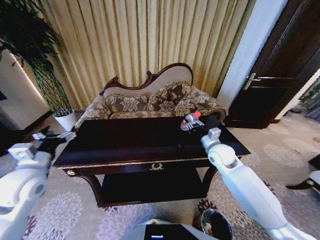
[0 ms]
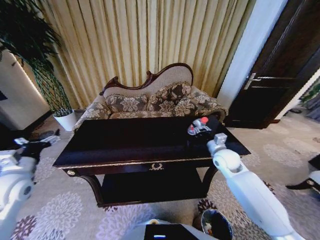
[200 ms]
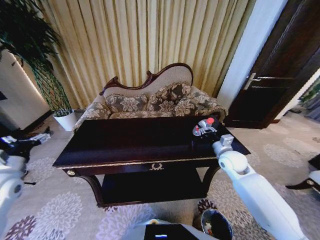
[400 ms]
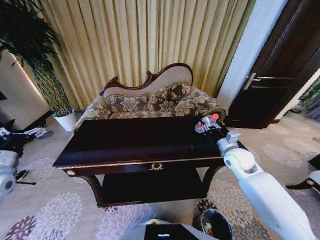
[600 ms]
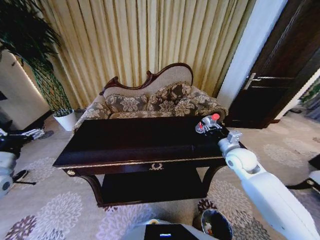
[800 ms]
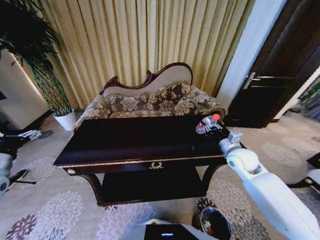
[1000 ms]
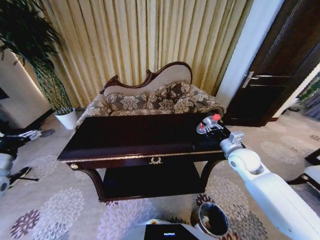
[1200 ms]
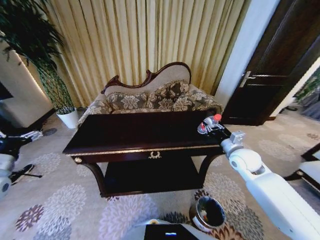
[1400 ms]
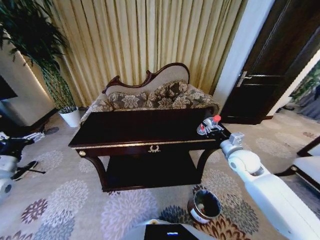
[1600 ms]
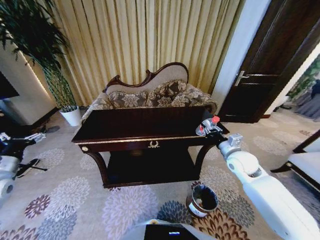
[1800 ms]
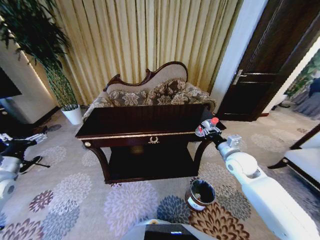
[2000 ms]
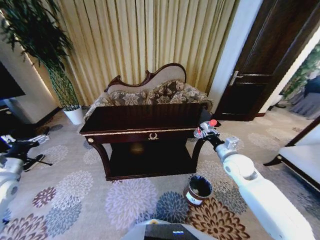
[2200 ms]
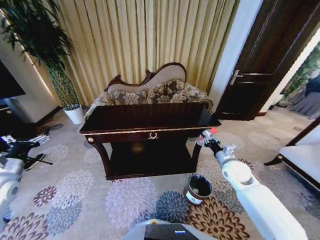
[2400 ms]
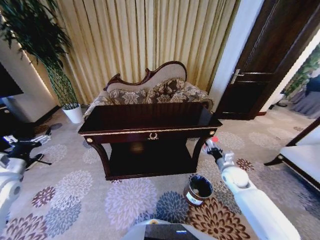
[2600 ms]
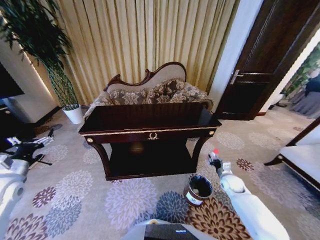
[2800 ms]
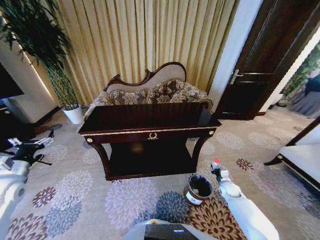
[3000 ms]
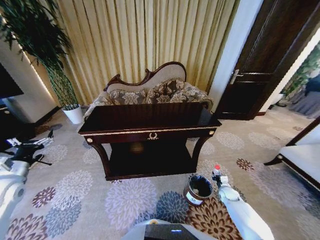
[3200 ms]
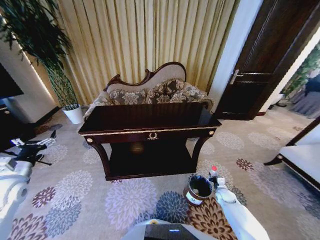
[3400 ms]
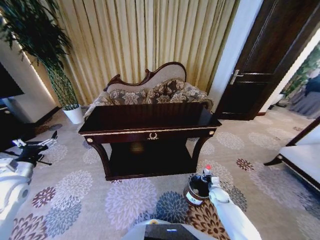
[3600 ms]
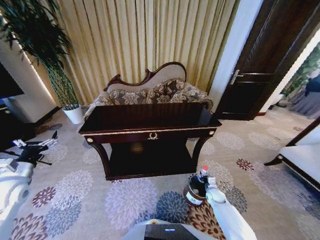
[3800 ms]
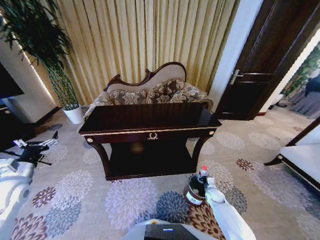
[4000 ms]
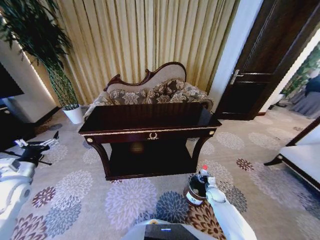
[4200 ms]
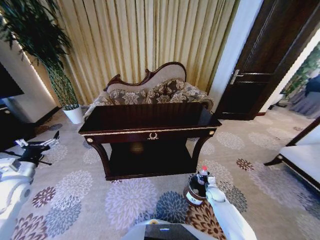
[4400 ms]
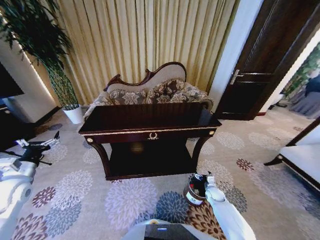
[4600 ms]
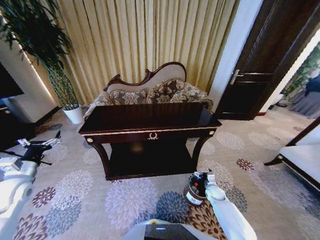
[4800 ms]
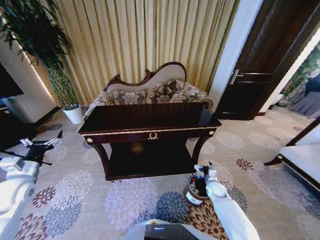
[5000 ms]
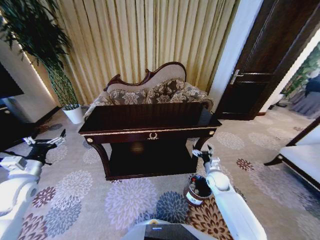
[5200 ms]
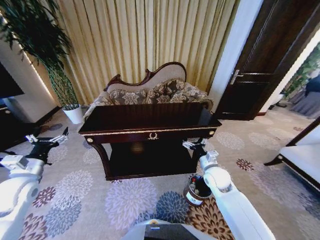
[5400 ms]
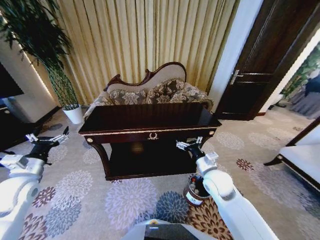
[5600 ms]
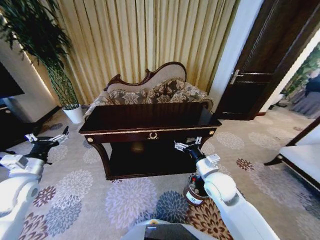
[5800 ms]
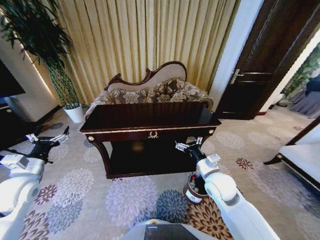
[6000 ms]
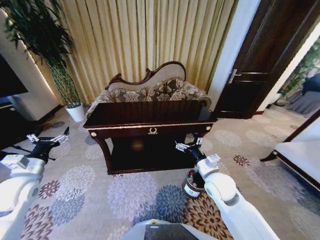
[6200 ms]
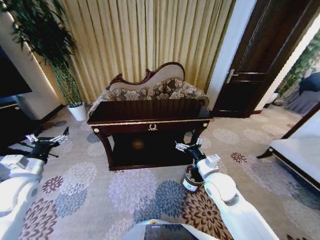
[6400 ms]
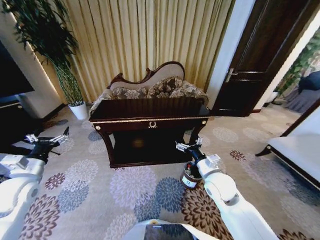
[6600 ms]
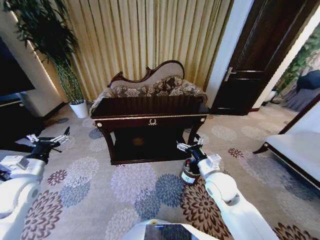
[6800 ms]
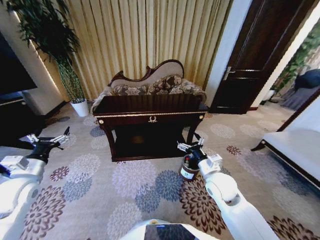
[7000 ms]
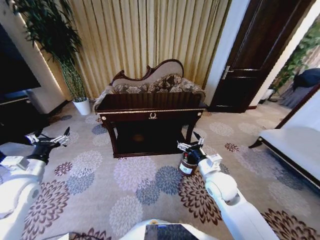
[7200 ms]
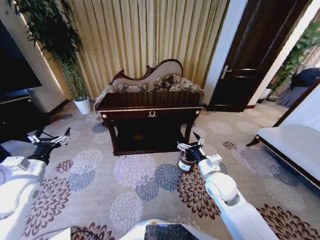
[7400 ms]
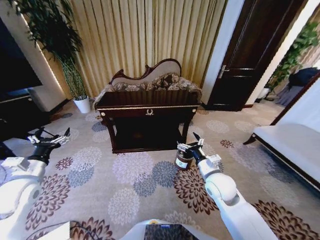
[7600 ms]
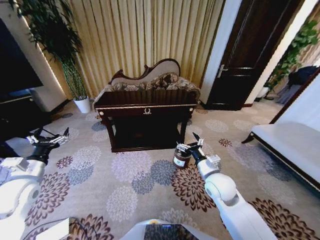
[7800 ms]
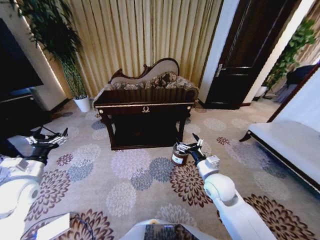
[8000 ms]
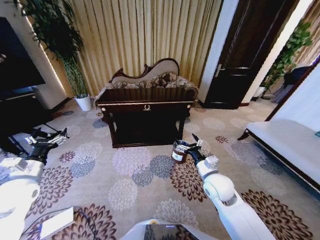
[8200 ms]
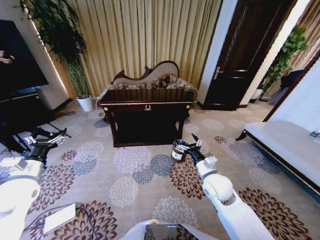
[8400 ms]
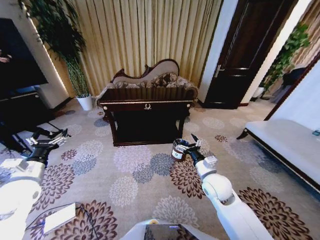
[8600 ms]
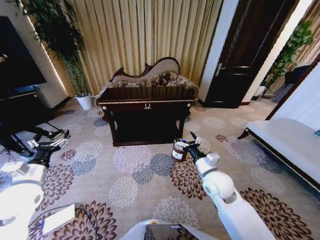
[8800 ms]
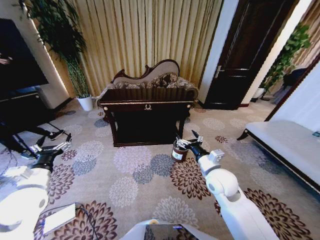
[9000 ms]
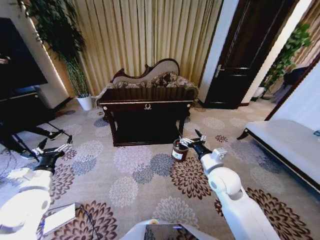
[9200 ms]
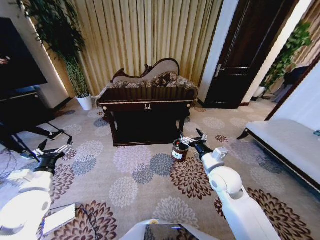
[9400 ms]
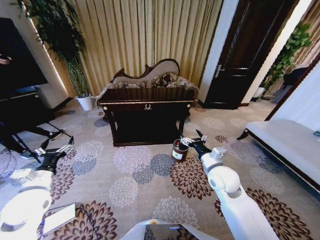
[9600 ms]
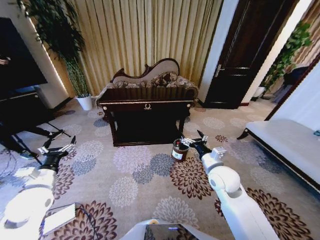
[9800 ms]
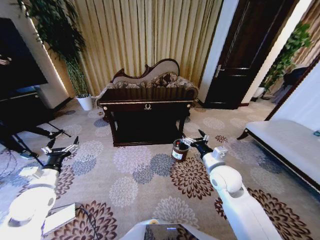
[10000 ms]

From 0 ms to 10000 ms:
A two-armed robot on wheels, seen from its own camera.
Task of the whole recording: Move to the front of the table and place the trash on the table into the trash bin.
From 0 ms to 1400 ms: The right gripper shifts roughly 5 cm to the right, while the left gripper is displaced to the left by roughly 15 cm.
From 1400 ms to 2800 ms: The right gripper is displaced downward by about 20 cm.
From 2800 ms to 4200 ms: The right gripper travels downward by roughly 15 cm.
From 4200 ms to 5800 ms: The left gripper shifts by about 5 cm. Meanwhile the right gripper goes roughly 35 cm upward and to the left, and opens its fingers.
From 8600 ms to 10000 ms: The left gripper moves about 5 cm.

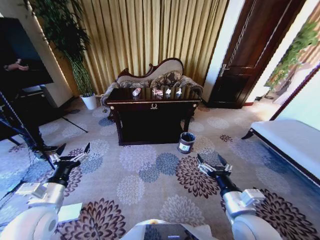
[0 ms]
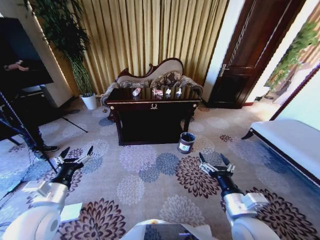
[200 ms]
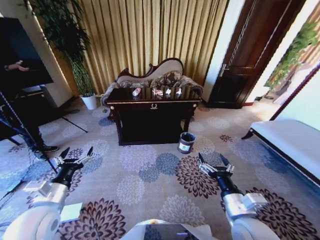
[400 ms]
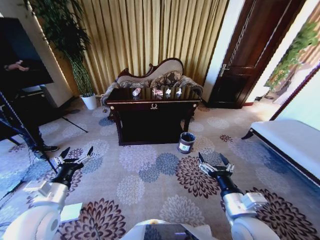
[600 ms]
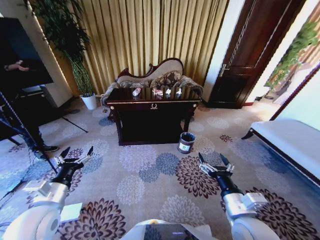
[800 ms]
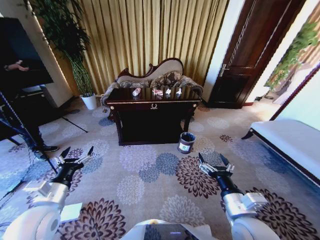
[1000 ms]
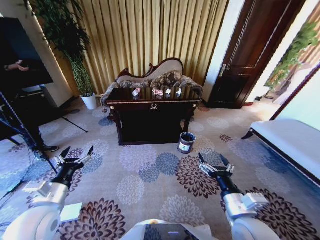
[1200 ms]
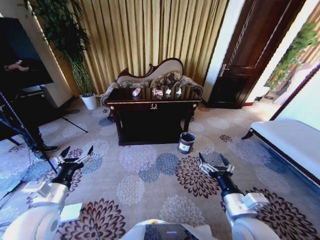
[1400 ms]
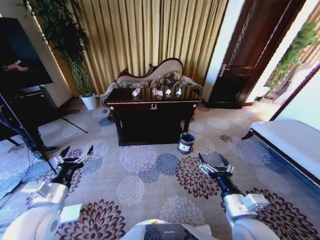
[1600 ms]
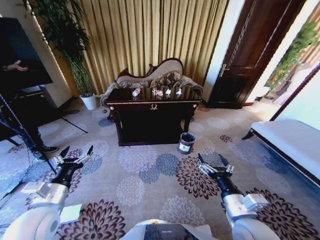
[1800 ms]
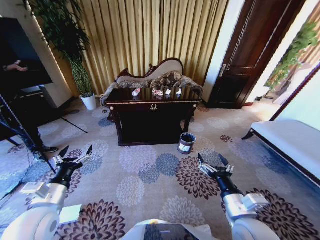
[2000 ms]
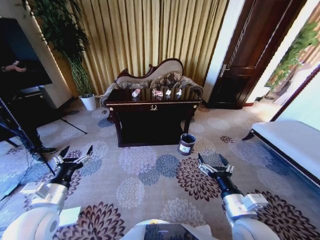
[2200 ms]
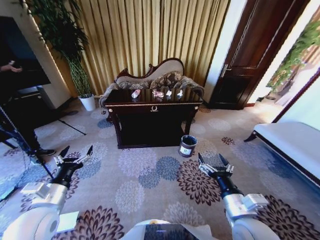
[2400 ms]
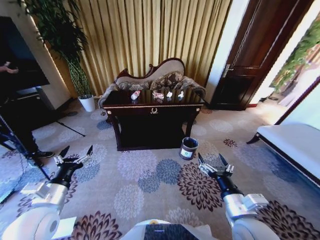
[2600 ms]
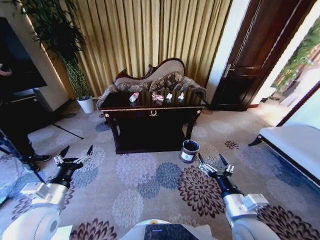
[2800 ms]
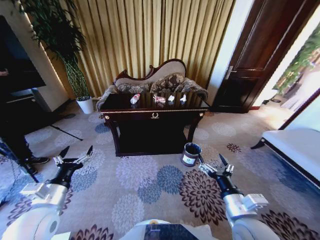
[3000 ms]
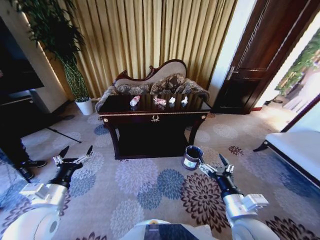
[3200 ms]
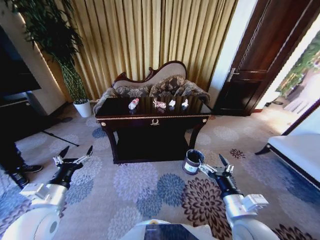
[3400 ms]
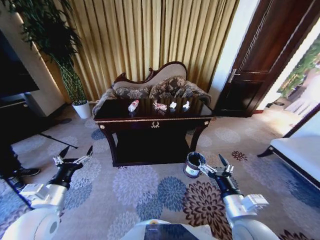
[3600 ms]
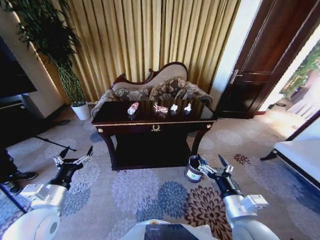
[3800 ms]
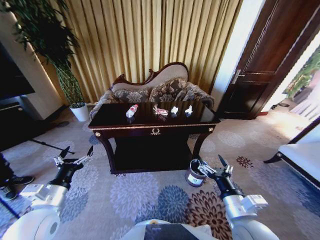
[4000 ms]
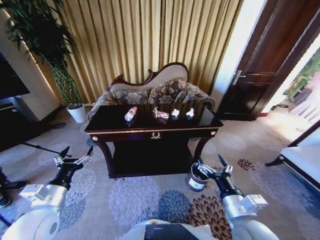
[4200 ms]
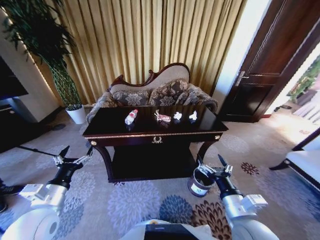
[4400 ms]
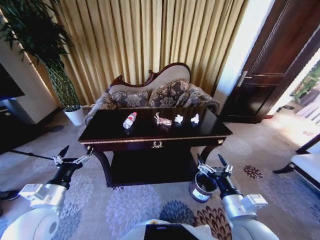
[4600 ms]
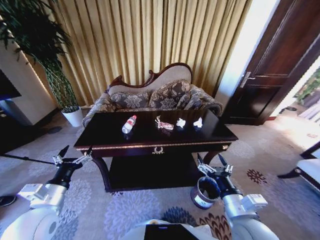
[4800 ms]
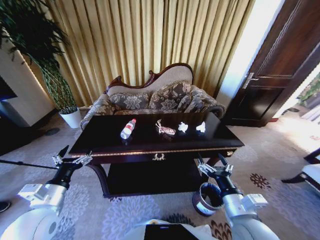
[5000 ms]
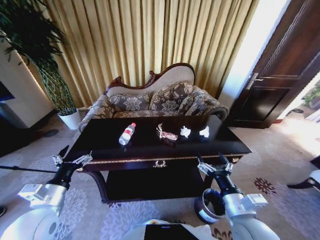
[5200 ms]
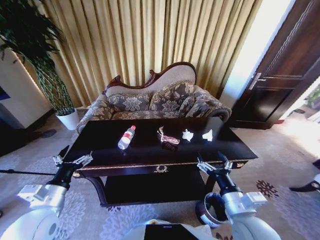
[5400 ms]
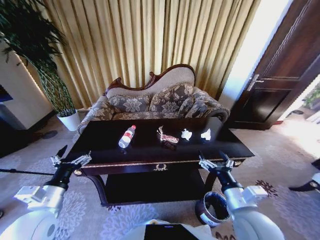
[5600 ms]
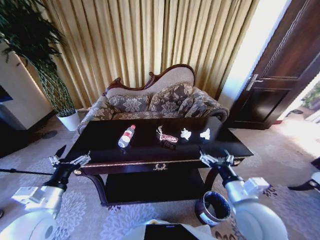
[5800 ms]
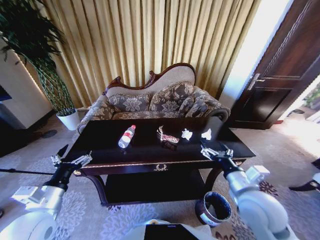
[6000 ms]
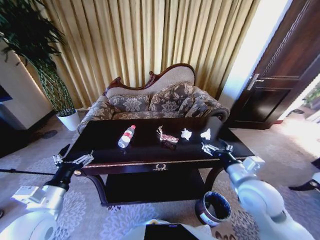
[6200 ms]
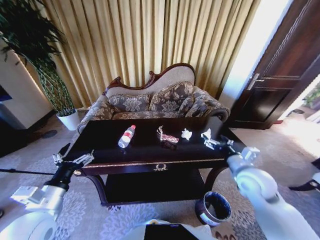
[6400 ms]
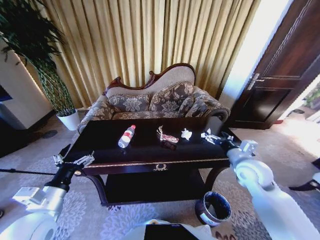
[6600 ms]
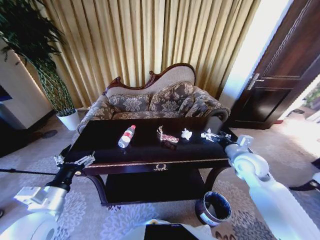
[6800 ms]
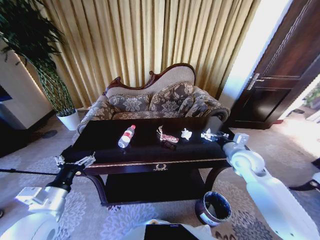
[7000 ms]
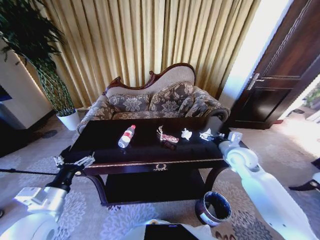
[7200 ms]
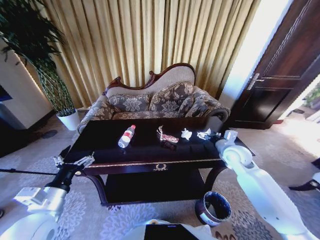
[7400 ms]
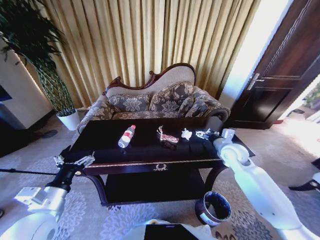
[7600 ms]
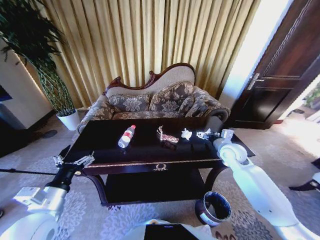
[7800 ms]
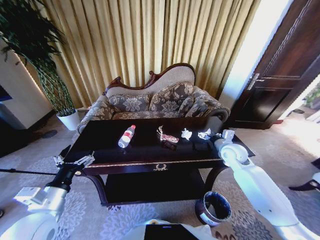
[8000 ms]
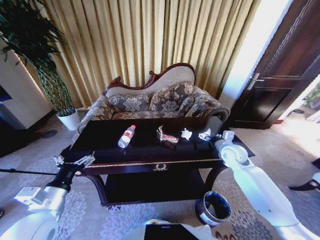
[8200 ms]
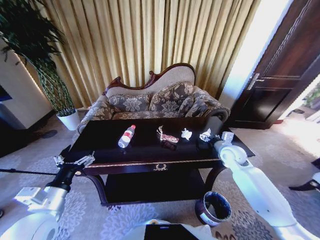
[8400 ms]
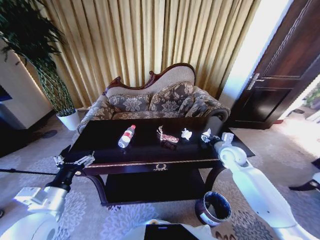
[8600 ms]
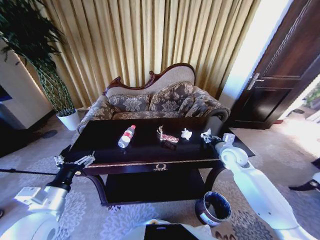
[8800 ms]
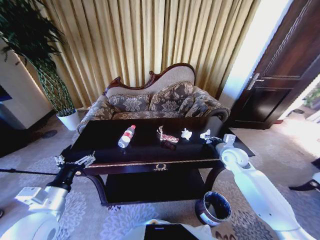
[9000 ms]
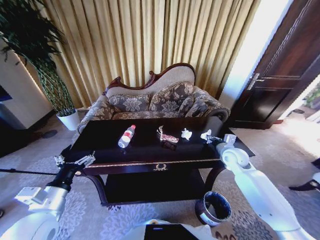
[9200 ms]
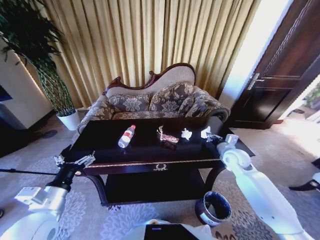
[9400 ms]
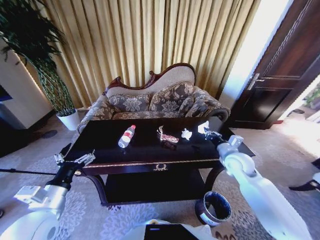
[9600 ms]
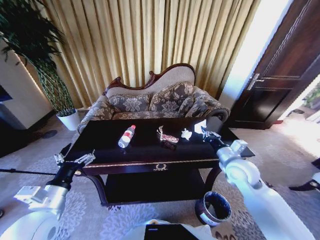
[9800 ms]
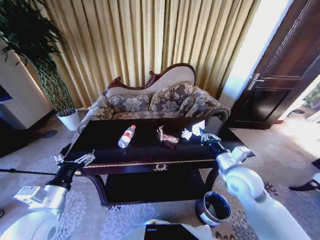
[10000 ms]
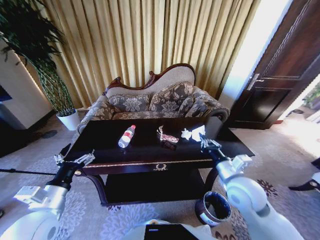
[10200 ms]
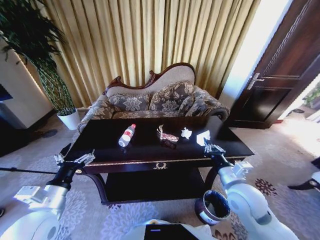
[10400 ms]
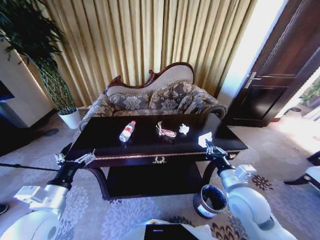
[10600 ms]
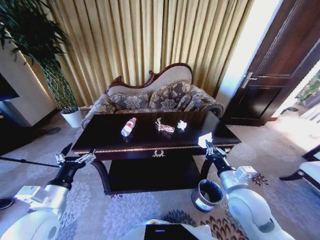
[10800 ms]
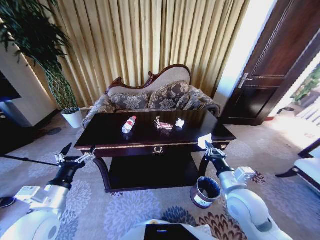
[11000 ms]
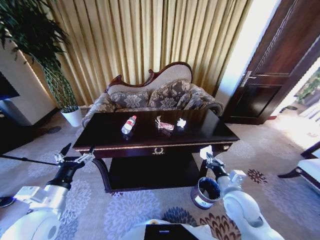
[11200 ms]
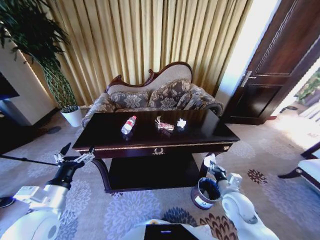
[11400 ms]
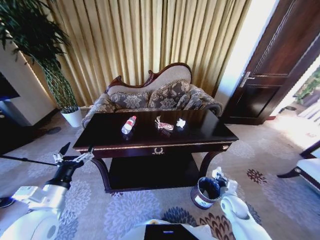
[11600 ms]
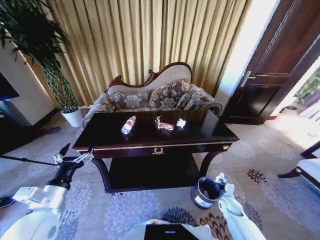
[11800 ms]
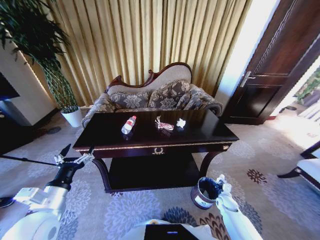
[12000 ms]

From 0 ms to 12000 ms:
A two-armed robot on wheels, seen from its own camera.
Task of the whole recording: Move to the front of the table and place the trash on the table into the trash bin.
From 4400 ms to 6000 ms: The right gripper shifts roughly 5 cm forward.
From 6000 ms to 7600 ms: The right gripper heads forward, covering some 20 cm.
From 7600 ms to 9000 ms: The right gripper closes.
From 9000 ms to 10400 ms: The right gripper is displaced backward and to the left by about 20 cm.
From 10400 ms to 12000 ms: The right gripper goes about 35 cm downward and to the right.
